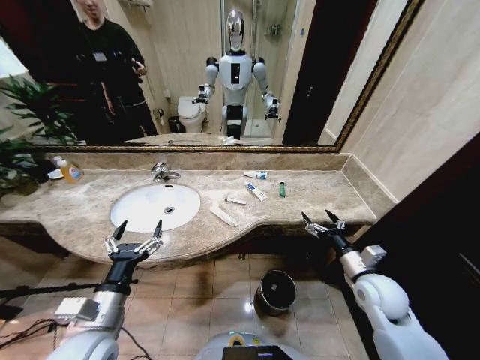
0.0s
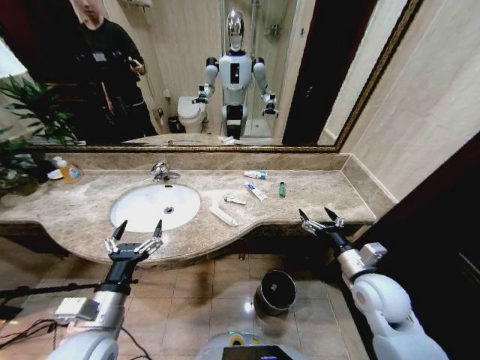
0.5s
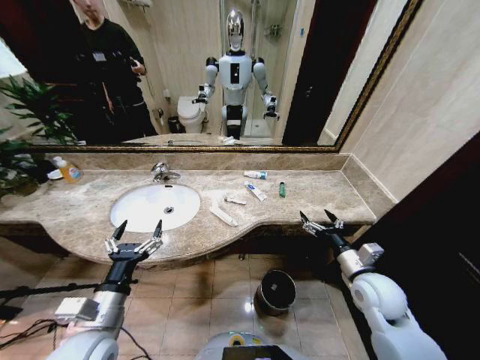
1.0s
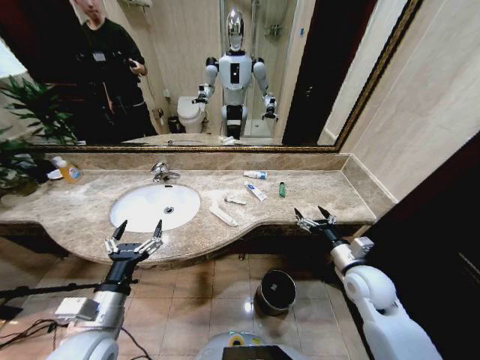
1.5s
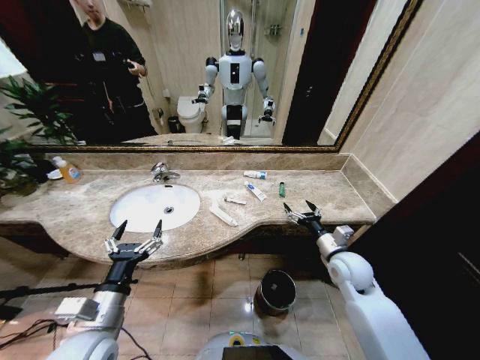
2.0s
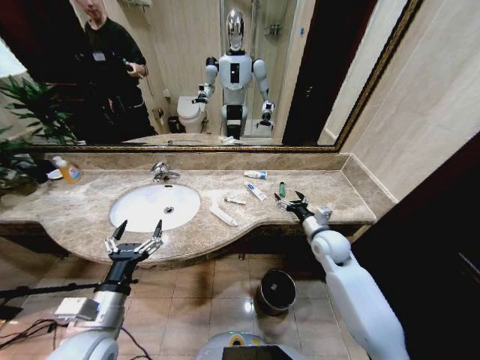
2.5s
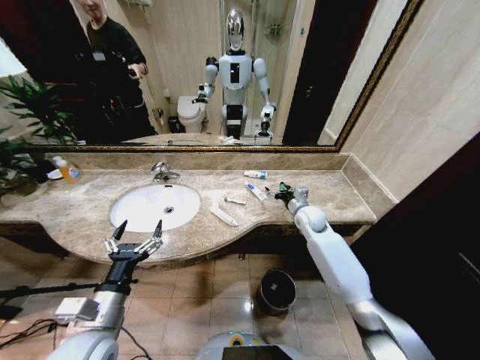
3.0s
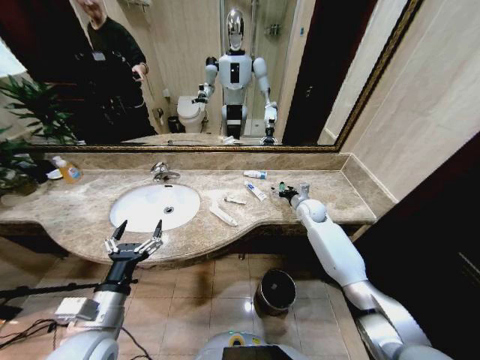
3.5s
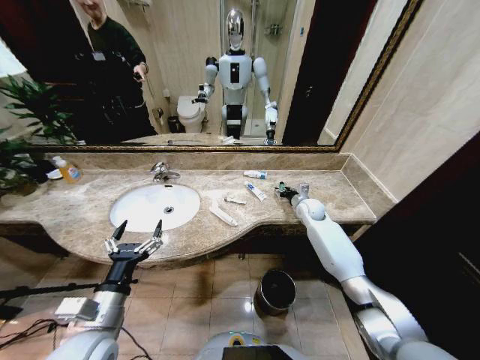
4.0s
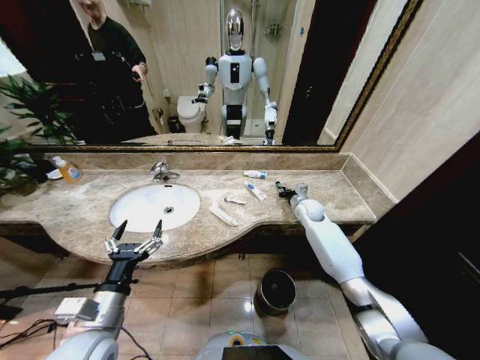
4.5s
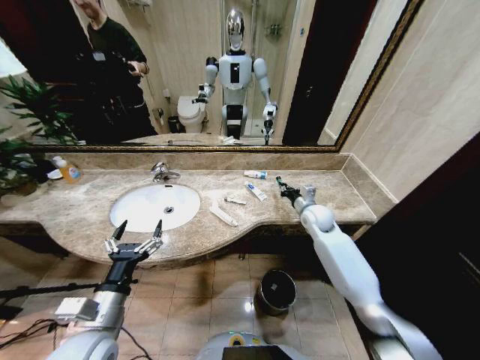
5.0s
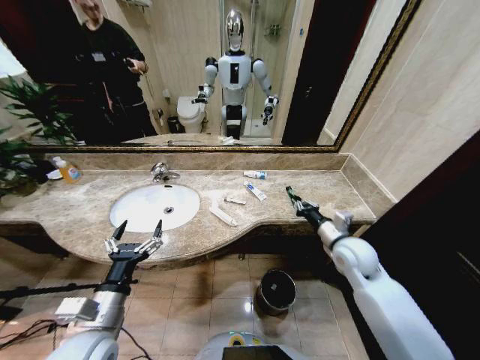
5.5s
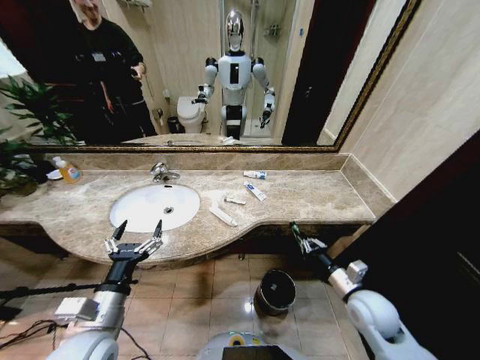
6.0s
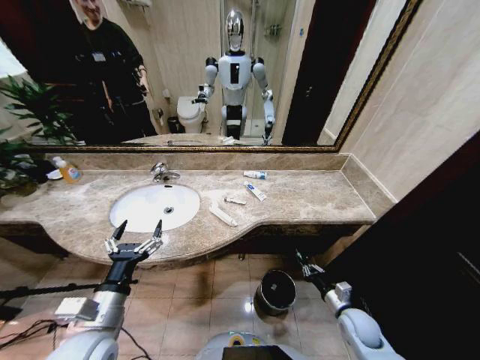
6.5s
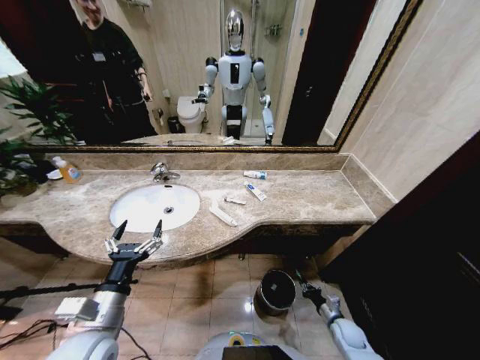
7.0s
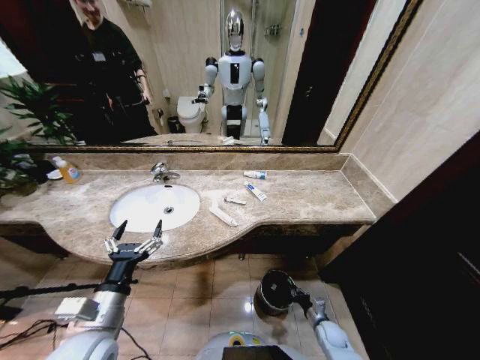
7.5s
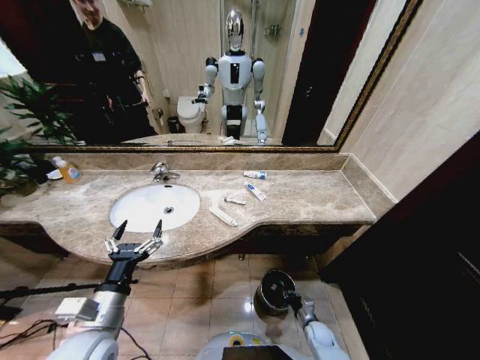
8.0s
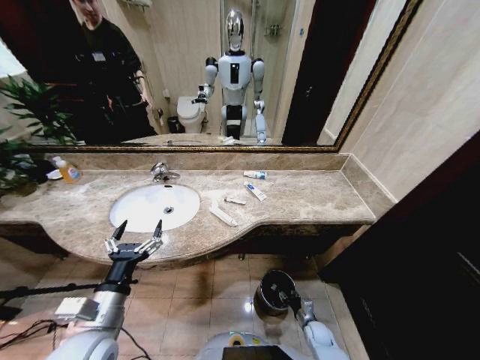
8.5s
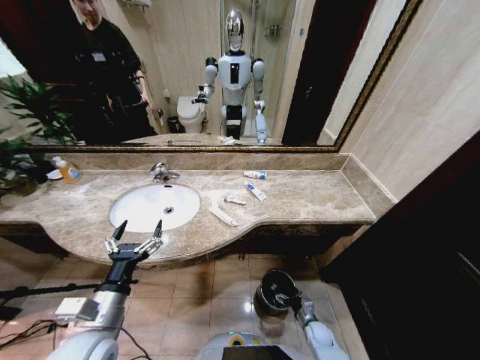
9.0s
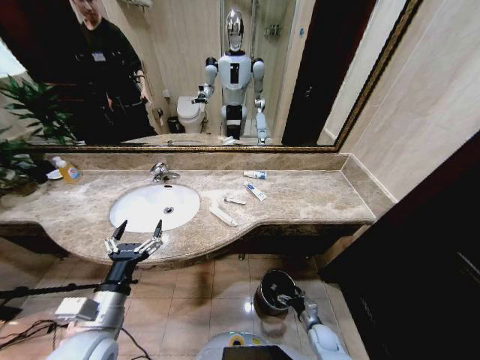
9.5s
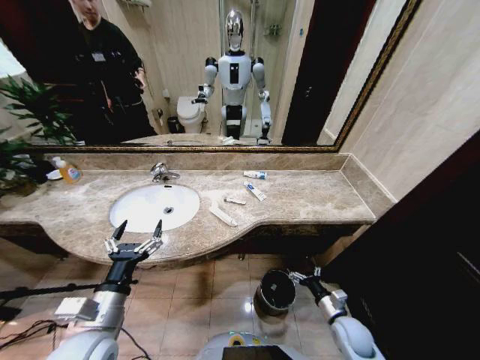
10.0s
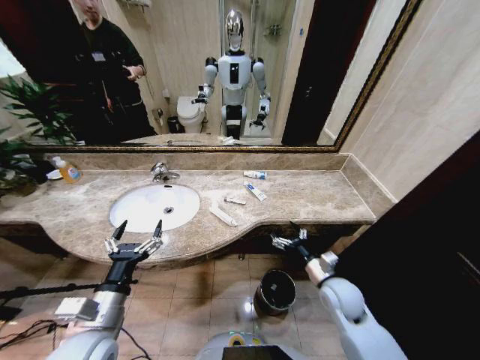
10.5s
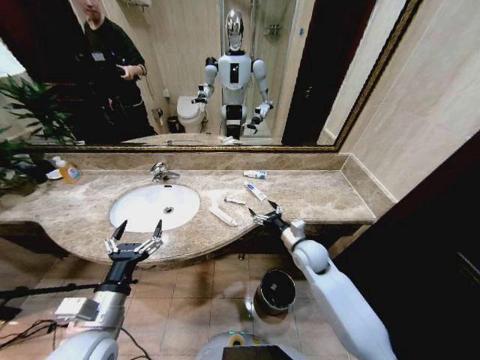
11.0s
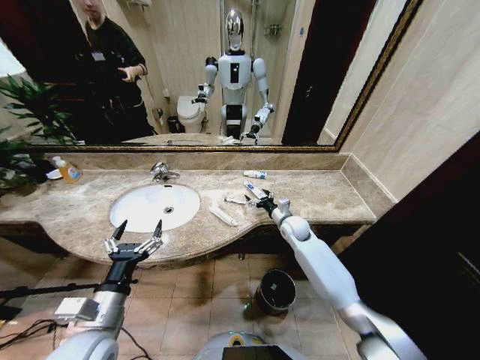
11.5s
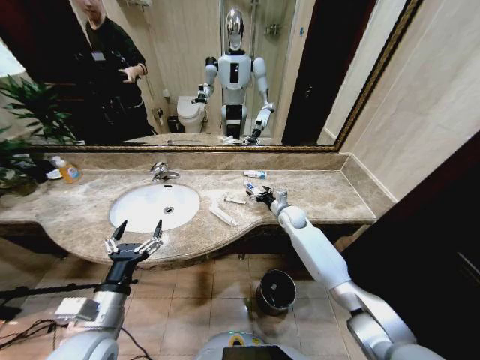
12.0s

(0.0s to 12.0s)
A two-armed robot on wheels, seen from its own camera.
Task of the whole recording: Pick up the trash from the sink and place it in the trash bin.
2.0s - 4.0s: The right gripper shifts about 25 cm forward, and closes up.
4.0s - 6.0s: The right gripper goes roughly 30 cm backward, and closes its fingers.
6.0s - 8.0s: The right gripper travels downward by approximately 30 cm.
8.0s - 10.0s: The right gripper travels upward by some 15 cm, and opens up.
10.0s - 12.0s: The right gripper shifts roughly 35 cm forward and upward.

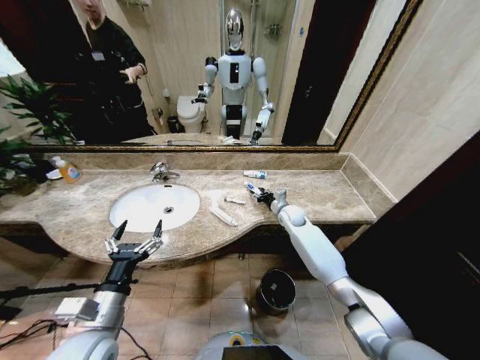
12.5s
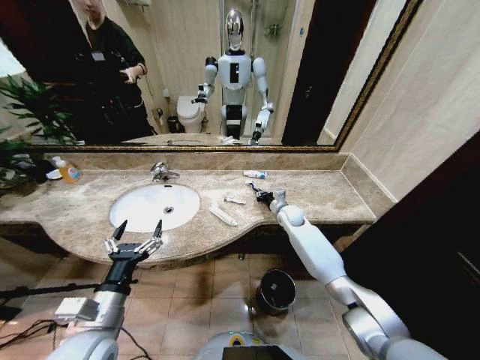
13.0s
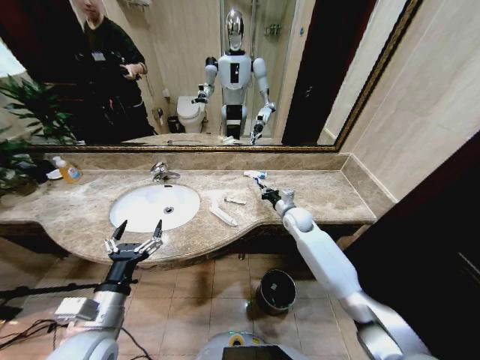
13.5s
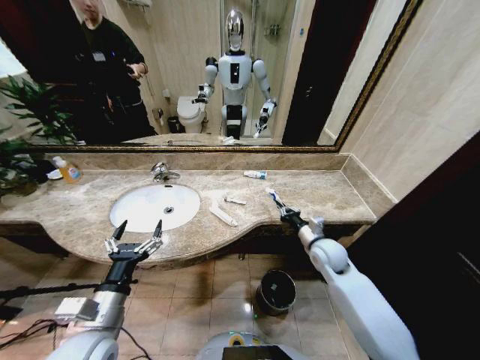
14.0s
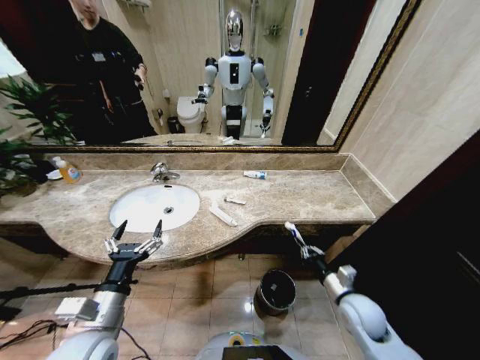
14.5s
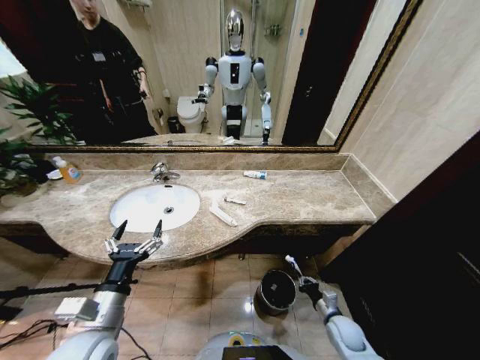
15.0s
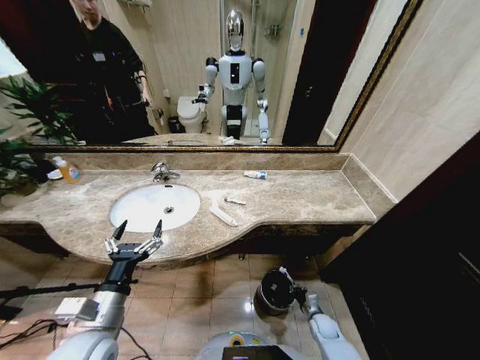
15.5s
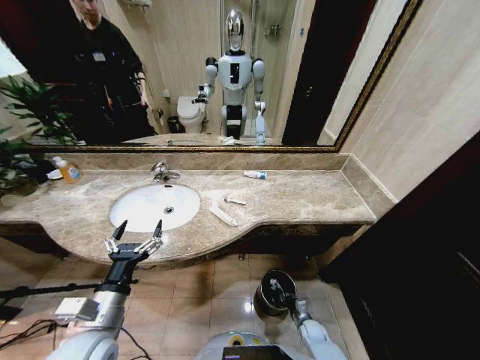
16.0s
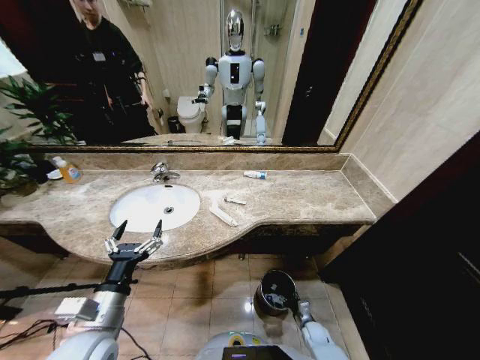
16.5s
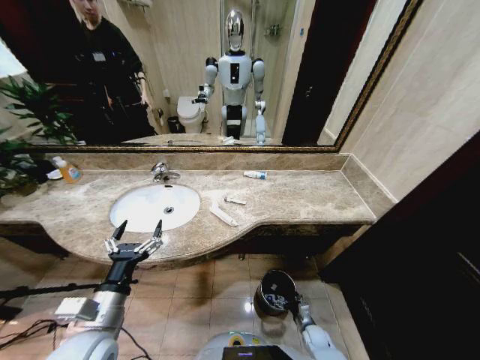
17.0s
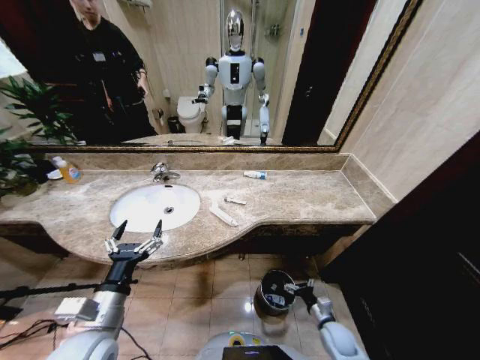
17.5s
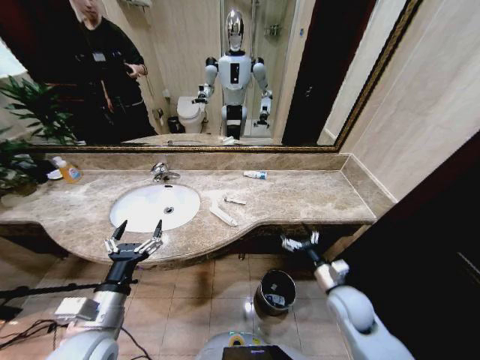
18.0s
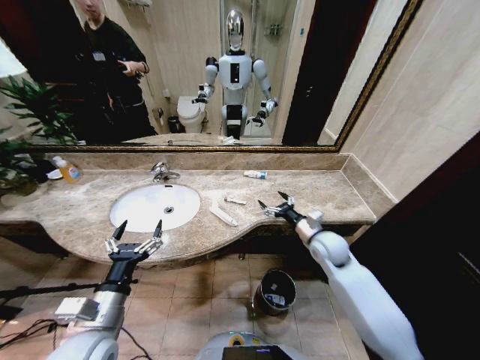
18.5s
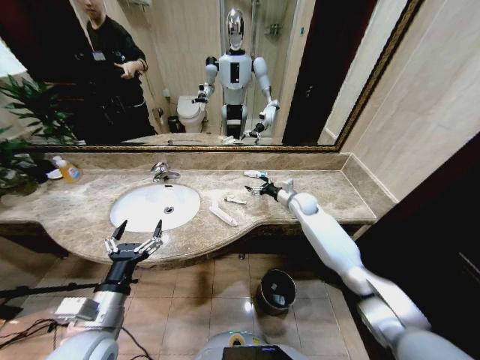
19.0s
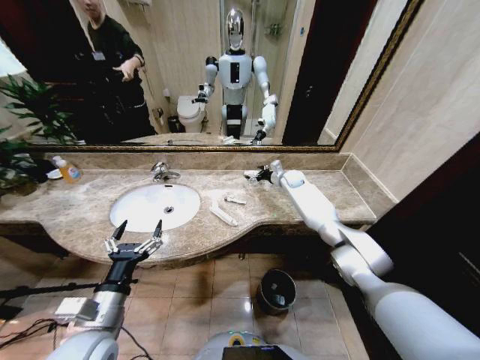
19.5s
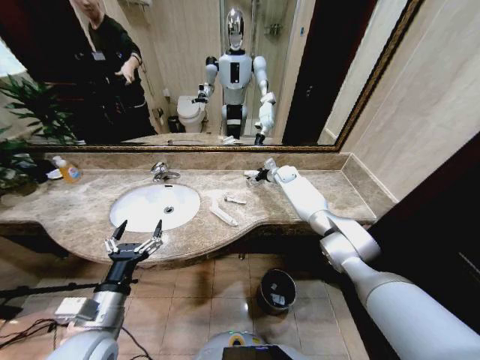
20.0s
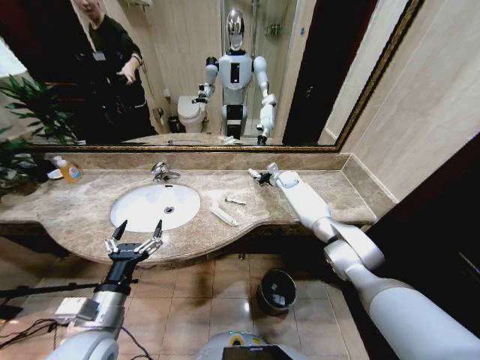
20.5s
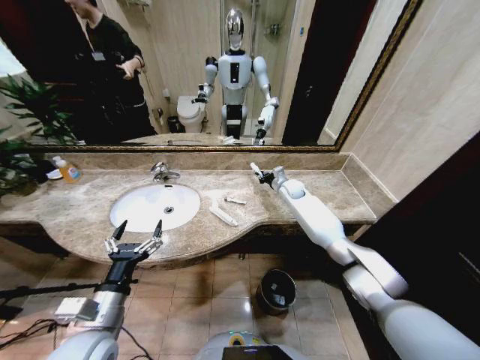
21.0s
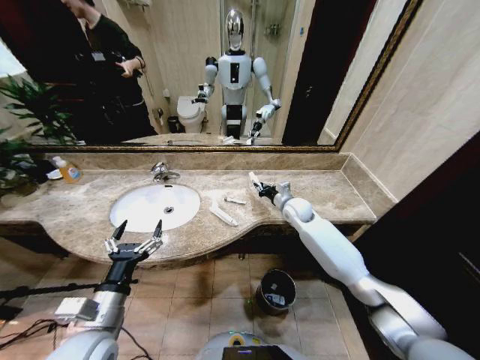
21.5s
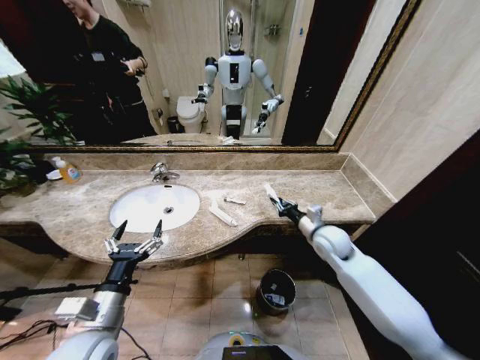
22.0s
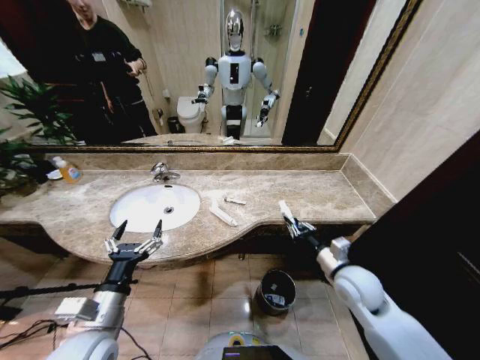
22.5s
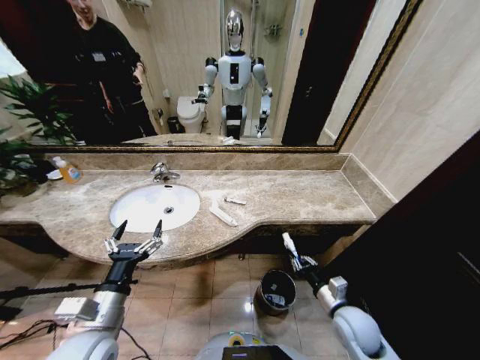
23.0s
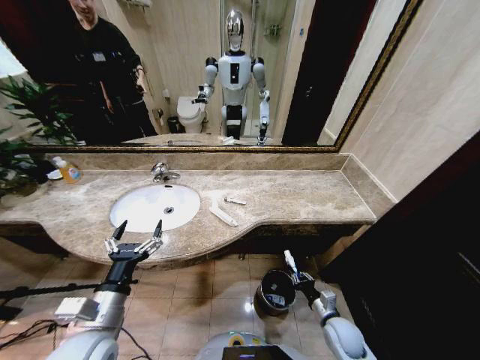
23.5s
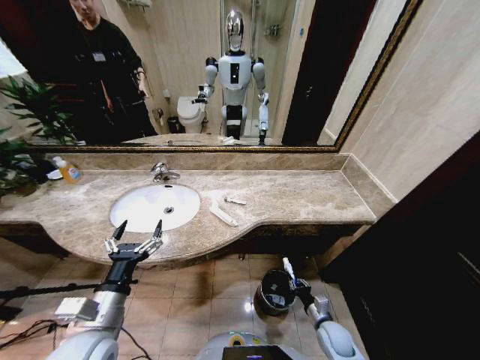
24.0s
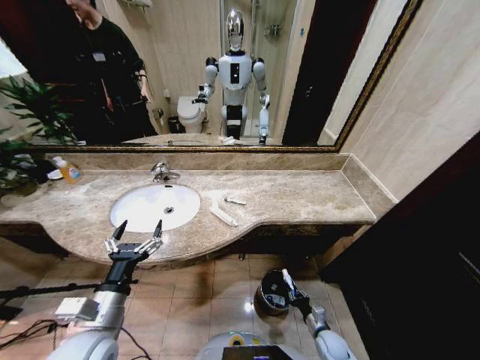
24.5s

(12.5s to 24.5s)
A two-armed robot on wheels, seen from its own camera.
Task of the whole recording: Pick up the trash from the sink and place it in the trash bin.
12.5s - 14.5s: The right gripper heads backward, covering approximately 30 cm, and closes up.
14.5s - 16.5s: The right gripper goes roughly 30 cm downward, and opens.
16.5s - 18.5s: The right gripper heads upward and forward, covering approximately 40 cm, and opens.
18.5s - 20.5s: The right gripper is displaced forward by about 30 cm, and closes its fingers.
20.5s - 22.5s: The right gripper goes approximately 40 cm backward.
22.5s - 24.5s: The right gripper is displaced downward by some 30 cm.

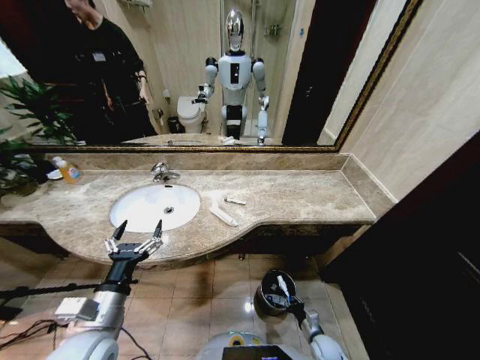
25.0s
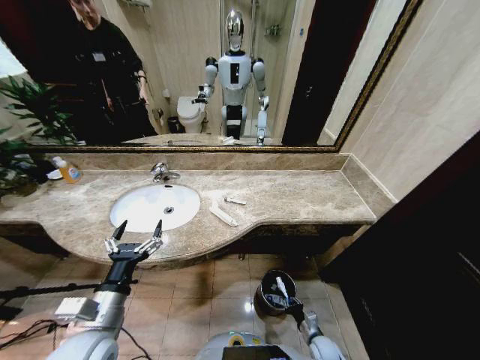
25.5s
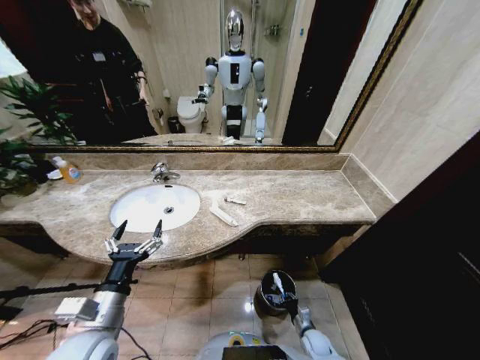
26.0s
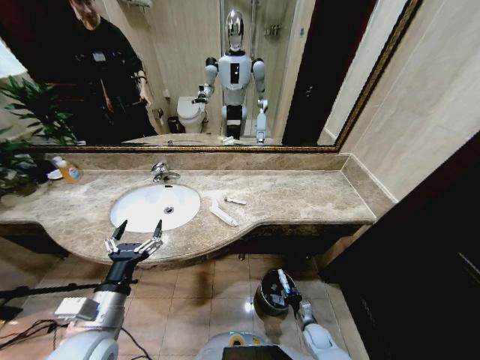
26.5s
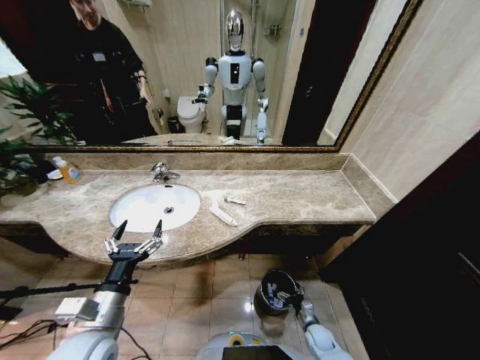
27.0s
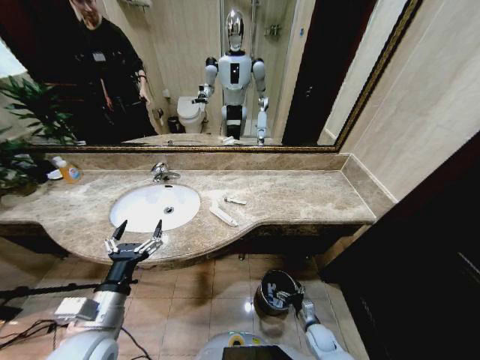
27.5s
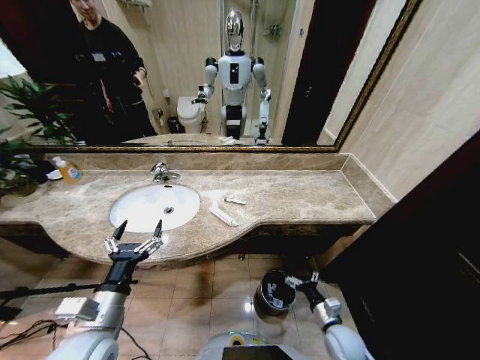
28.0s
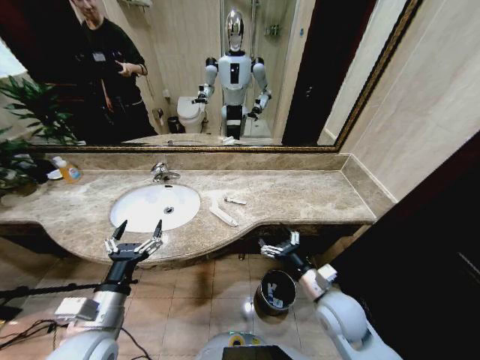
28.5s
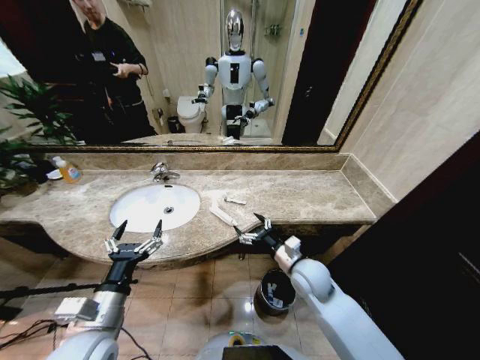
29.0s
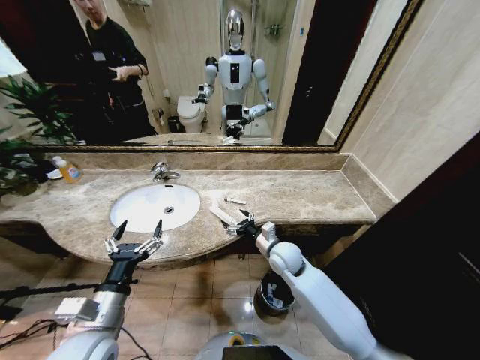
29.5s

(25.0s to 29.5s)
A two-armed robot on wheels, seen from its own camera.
Task of the whole recording: Pick up the trash from the sink and place it in the trash bin.
25.0s - 27.0s: The right gripper opens up.
27.0s - 29.5s: The right gripper shifts roughly 40 cm upward, forward and to the left.
